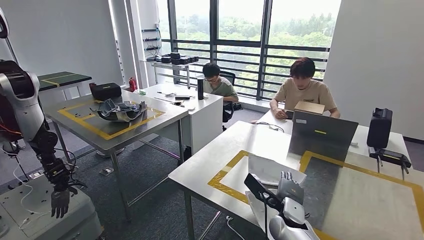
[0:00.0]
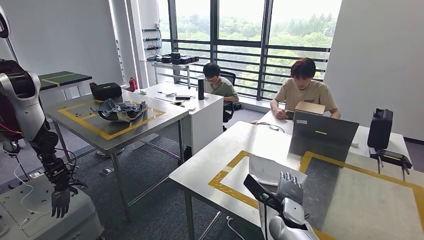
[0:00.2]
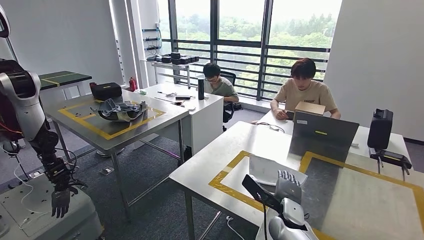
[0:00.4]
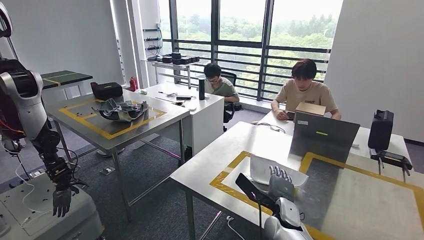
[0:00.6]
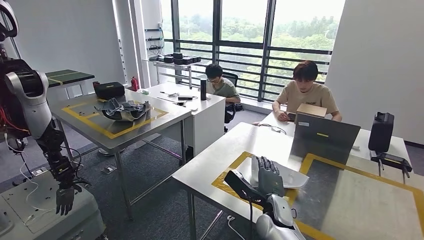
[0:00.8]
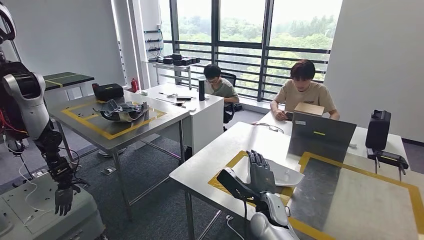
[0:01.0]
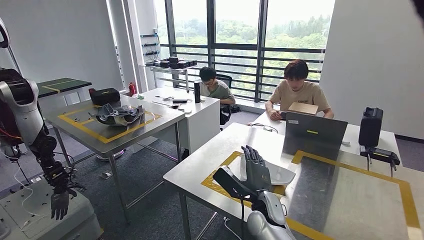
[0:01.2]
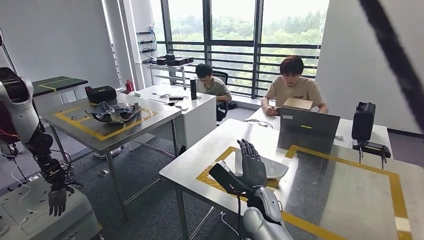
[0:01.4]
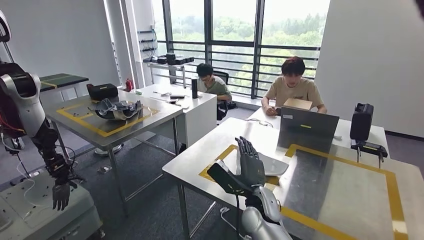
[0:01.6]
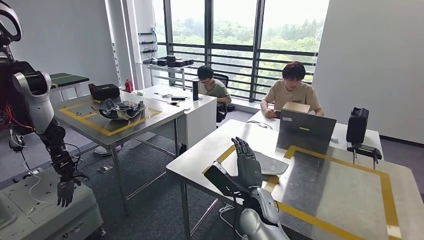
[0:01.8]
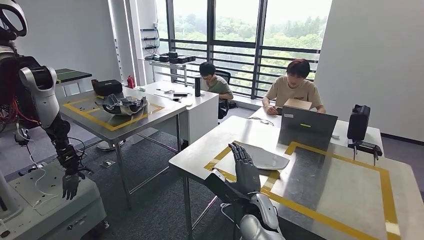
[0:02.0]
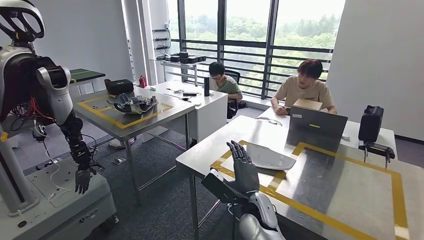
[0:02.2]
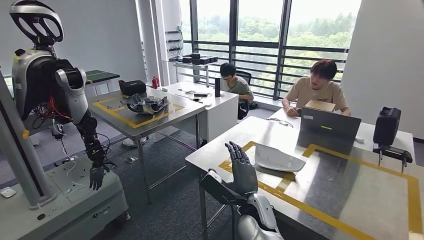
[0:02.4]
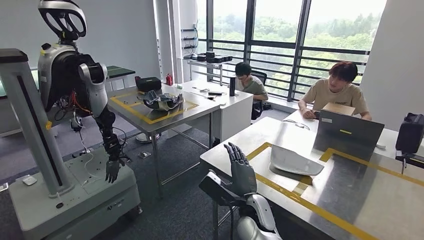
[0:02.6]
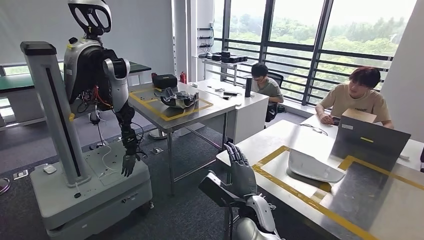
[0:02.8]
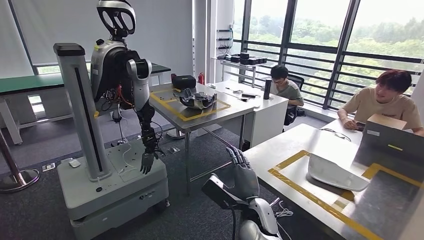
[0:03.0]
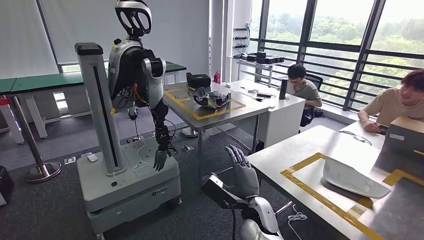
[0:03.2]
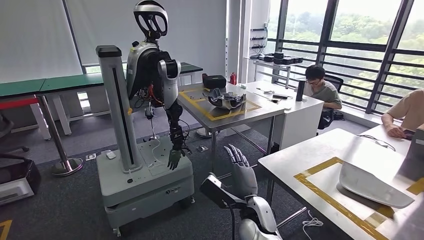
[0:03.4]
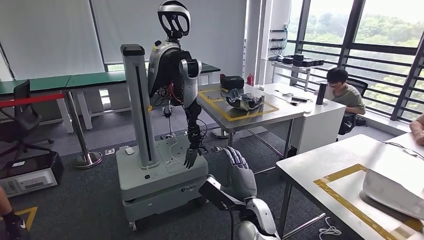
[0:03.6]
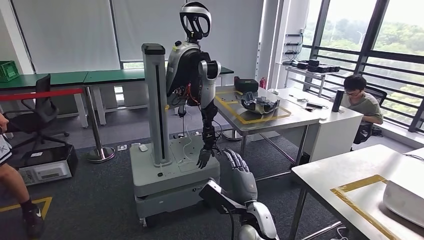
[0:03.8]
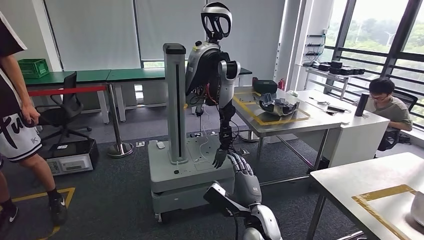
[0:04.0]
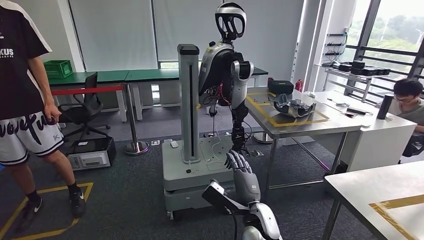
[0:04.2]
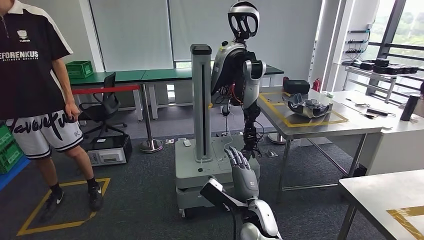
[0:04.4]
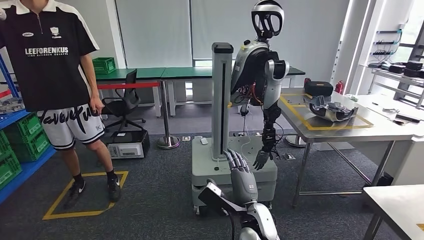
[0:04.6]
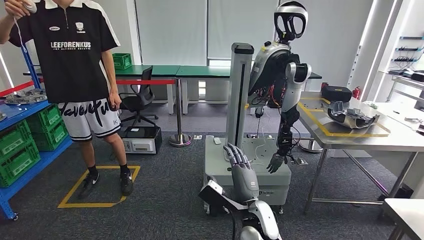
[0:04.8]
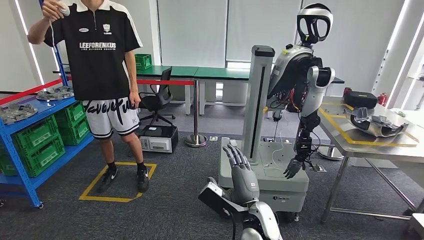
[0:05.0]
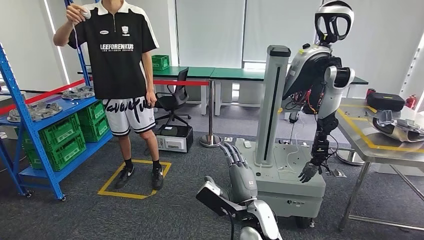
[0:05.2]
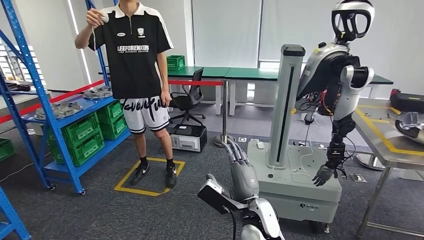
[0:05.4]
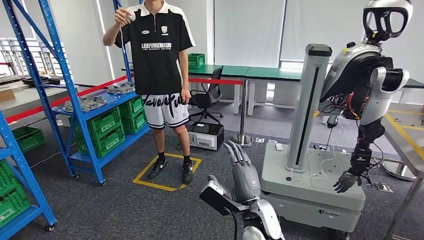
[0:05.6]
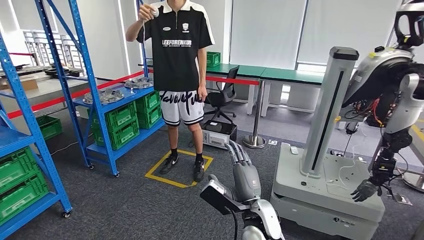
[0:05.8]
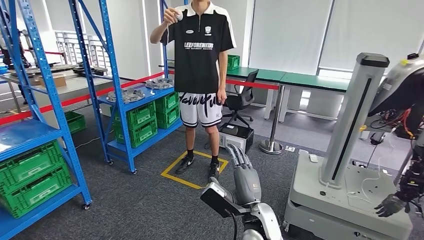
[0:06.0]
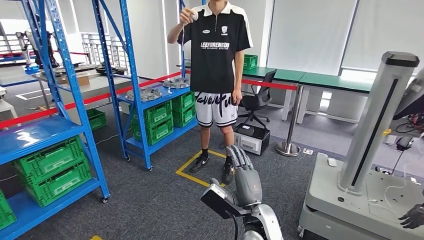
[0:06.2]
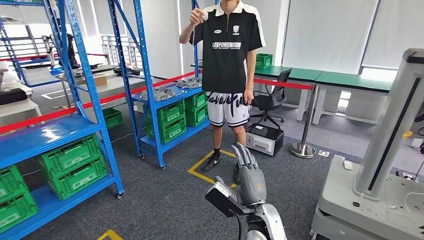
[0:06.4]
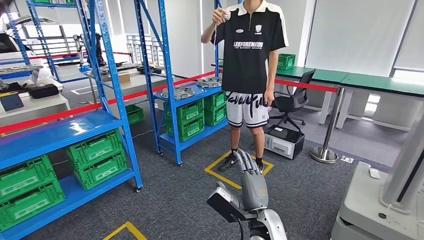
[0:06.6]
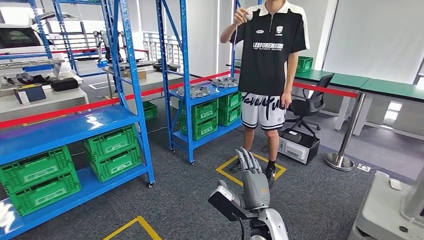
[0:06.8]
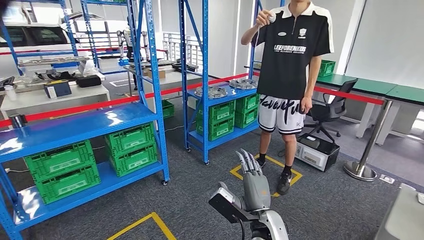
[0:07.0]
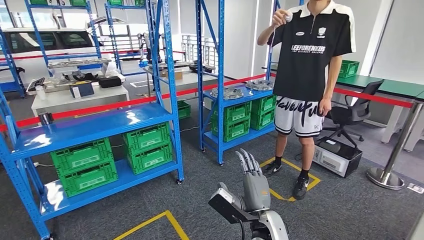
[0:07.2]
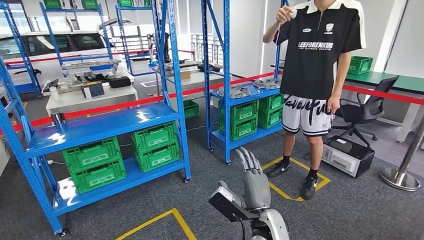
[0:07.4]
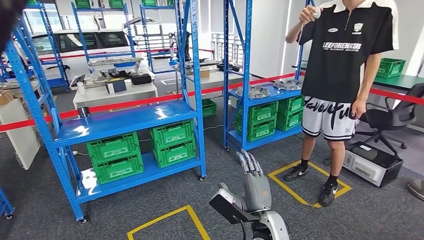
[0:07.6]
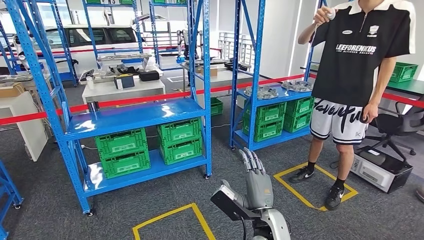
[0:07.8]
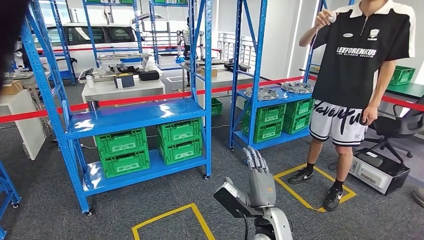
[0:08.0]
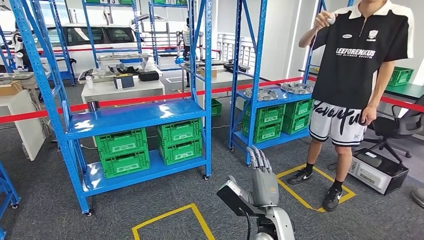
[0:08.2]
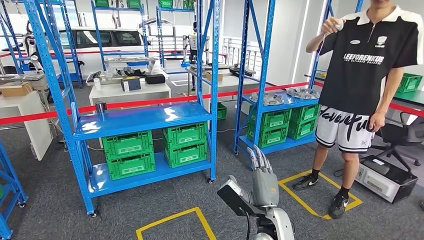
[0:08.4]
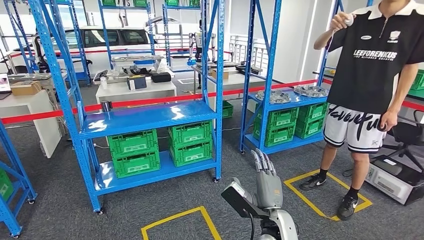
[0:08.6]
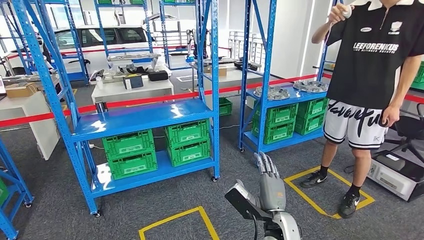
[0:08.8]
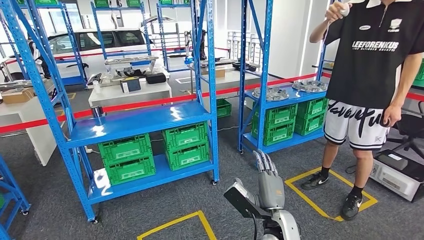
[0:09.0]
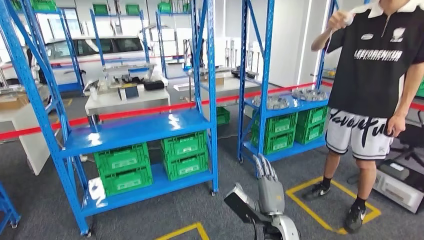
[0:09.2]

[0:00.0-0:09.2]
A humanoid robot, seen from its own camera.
Step, 0:00.0 to 0:03.4: Insert the small parts into the corresponding holes on the workbench.
Step, 0:03.6 to 0:09.2: Move to the initial position of the workbench.
